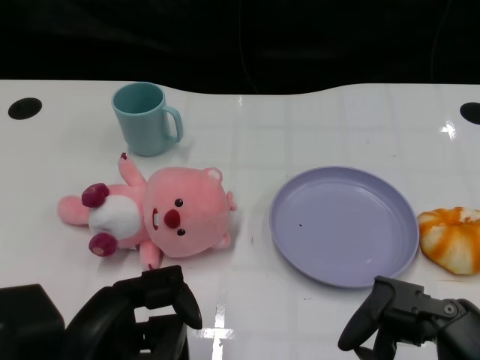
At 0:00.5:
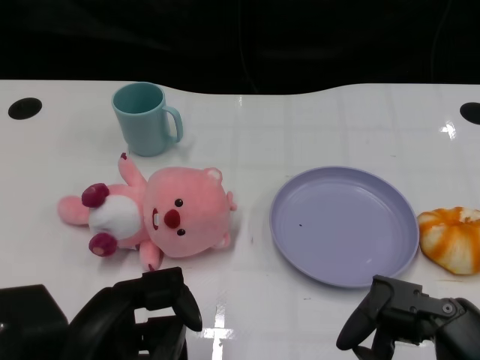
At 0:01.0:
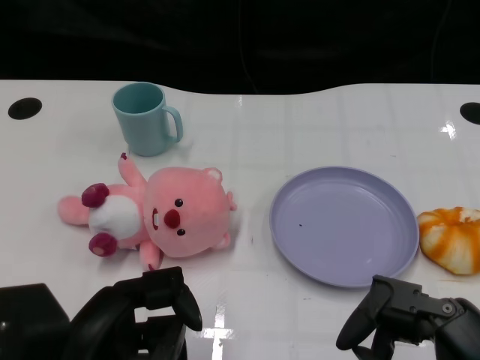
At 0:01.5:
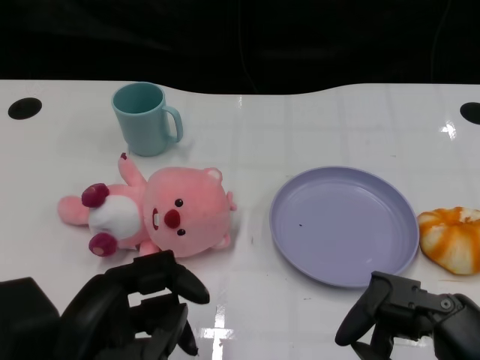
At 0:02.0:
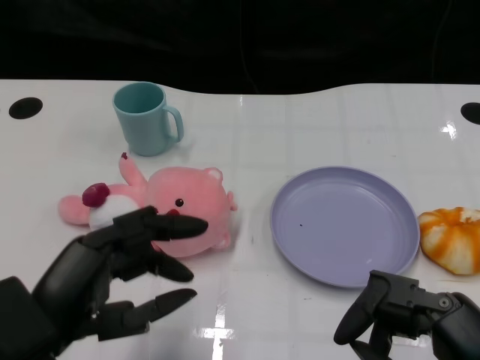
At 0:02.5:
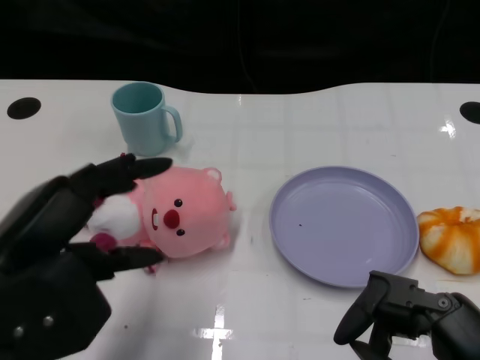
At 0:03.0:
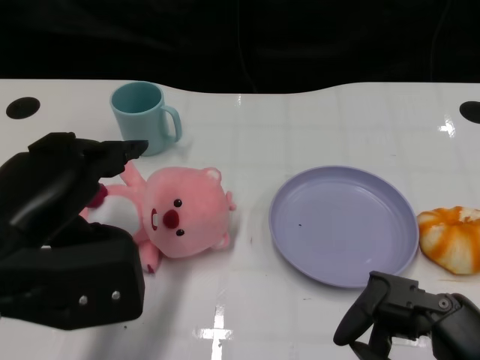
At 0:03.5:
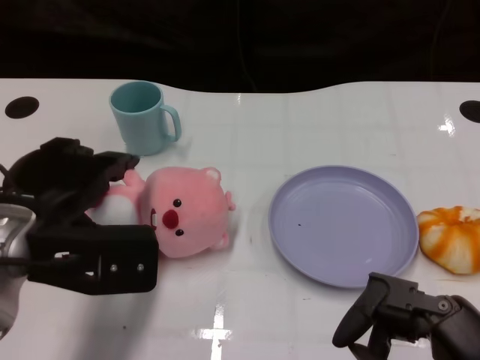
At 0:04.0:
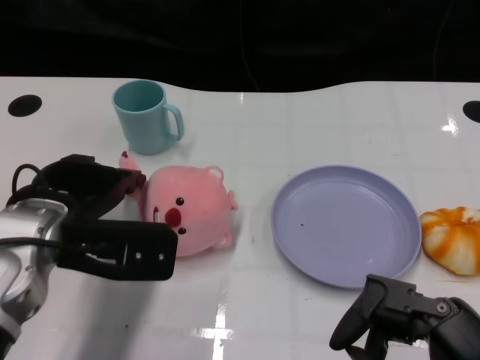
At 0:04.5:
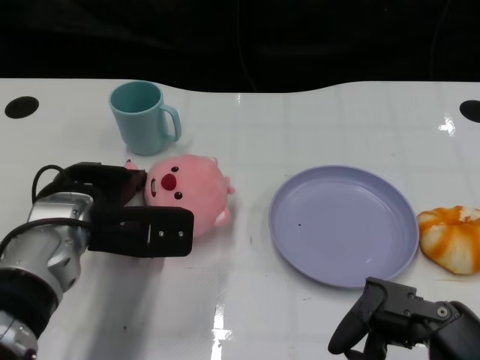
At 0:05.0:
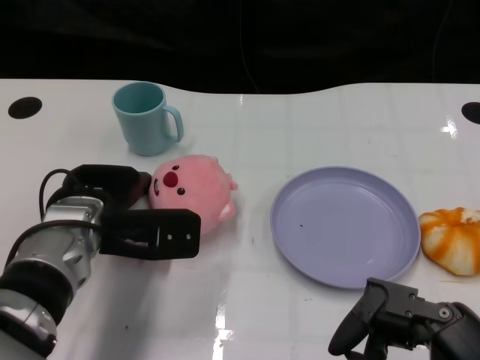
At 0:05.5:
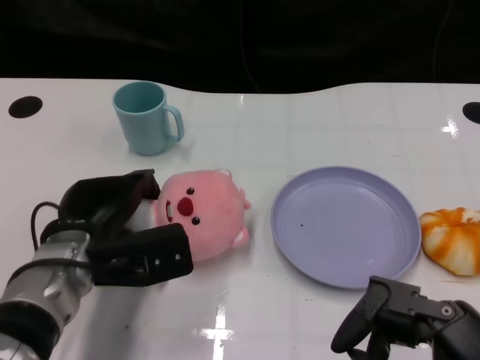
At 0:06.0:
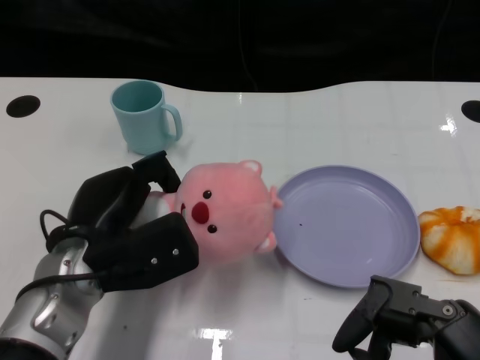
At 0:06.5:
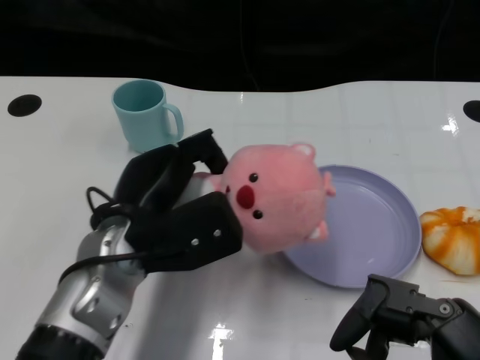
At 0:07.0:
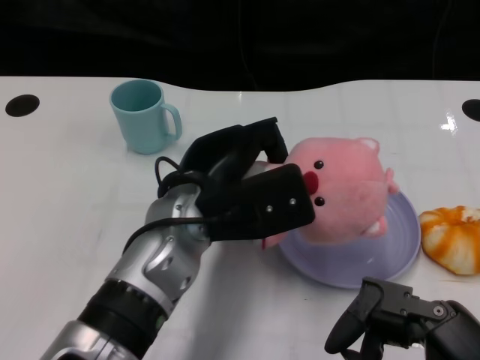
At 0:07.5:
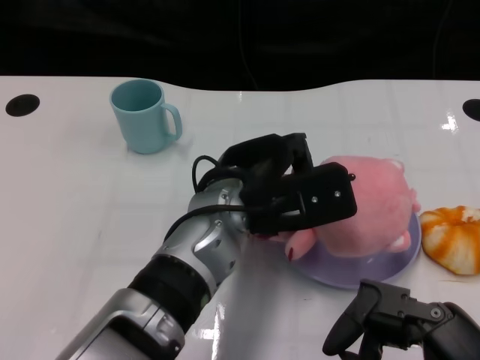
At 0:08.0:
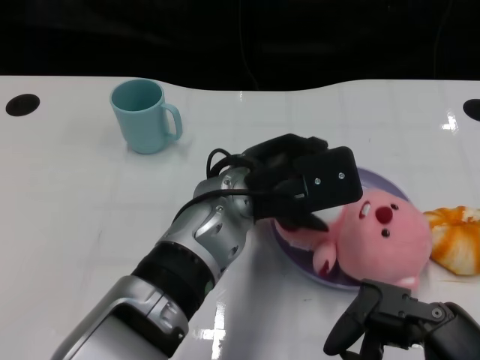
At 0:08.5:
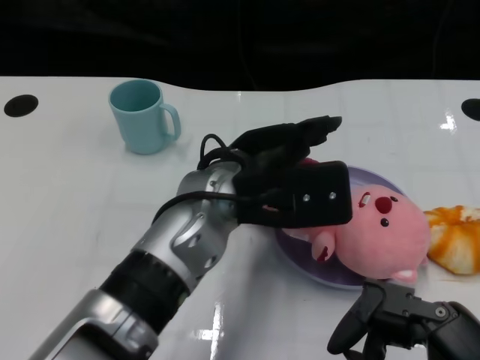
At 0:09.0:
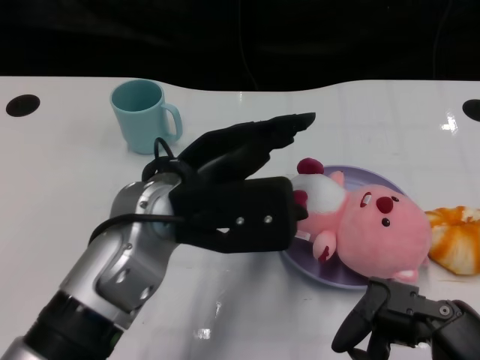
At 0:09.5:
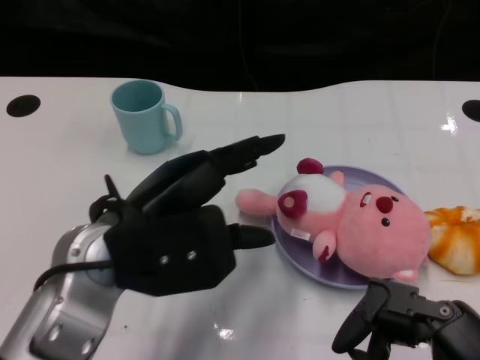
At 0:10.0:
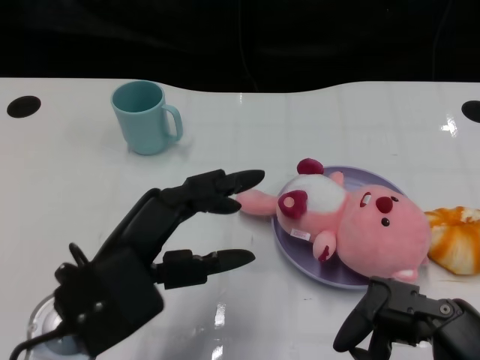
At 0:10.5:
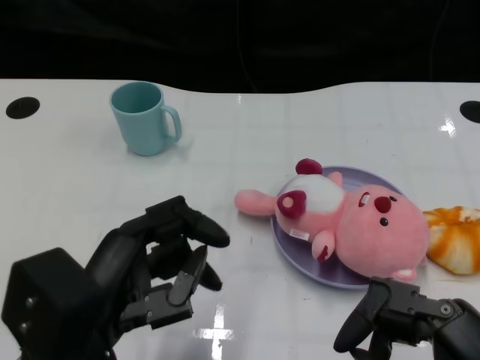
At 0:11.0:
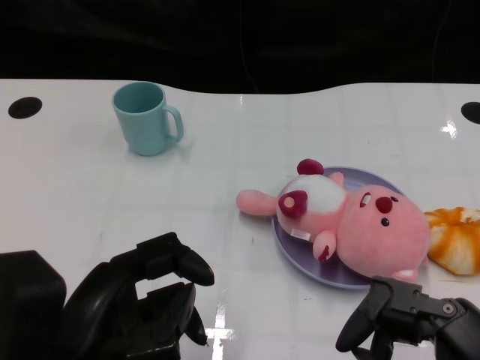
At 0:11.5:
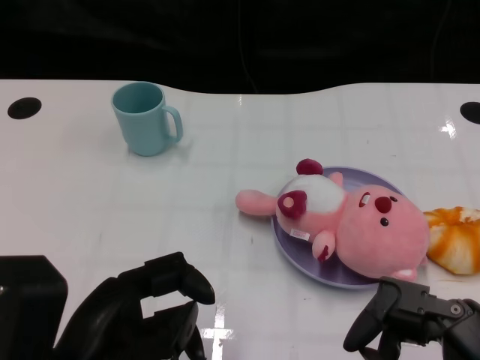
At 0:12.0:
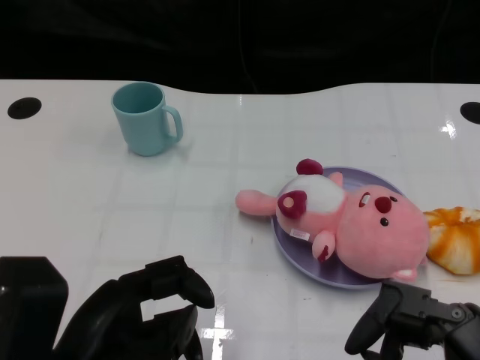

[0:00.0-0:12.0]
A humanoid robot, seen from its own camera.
Task of the whole recording: Pick up the doll on one side of the plate and place it into the plate.
Step, 0:01.5 to 0:05.5: Grasp the pink doll with the left gripper.
Step, 0:06.0 to 0:08.0: Place the pink doll into the plate with the left gripper.
0:02.0 to 0:04.0: The left hand shifts roughly 15 cm forward.
0:04.0 to 0:06.0: The left hand shifts by about 5 cm.
0:06.0 to 0:08.0: The left hand shifts approximately 15 cm to the right.
0:08.0 to 0:10.0: The left hand moves to the left and backward, roughly 15 cm.
0:10.0 to 0:12.0: The left hand moves backward, approximately 5 cm.

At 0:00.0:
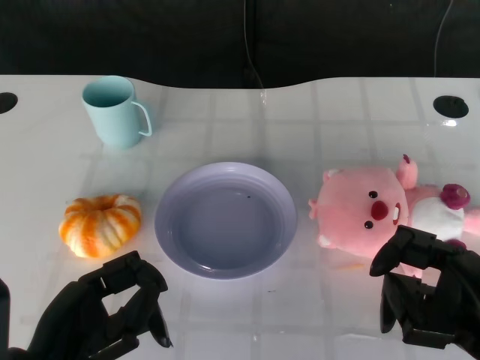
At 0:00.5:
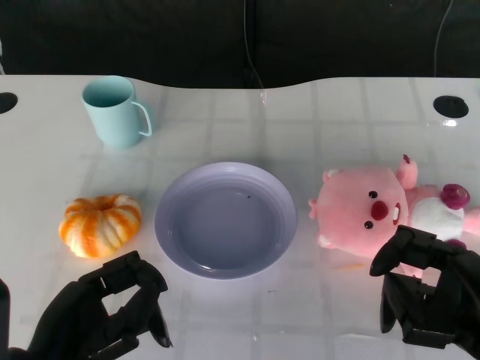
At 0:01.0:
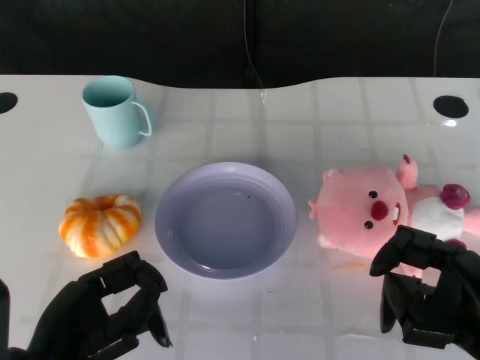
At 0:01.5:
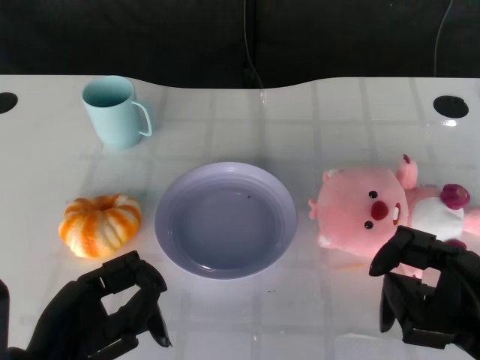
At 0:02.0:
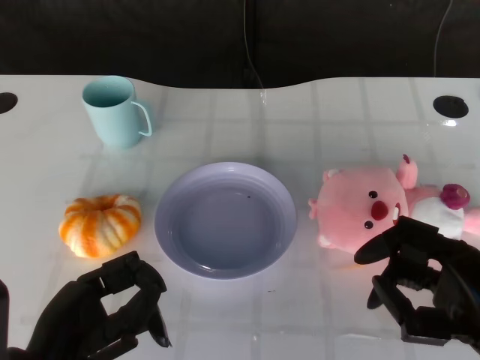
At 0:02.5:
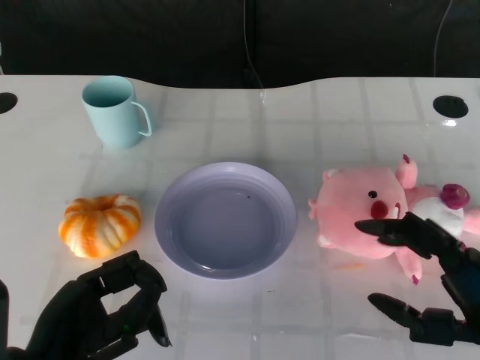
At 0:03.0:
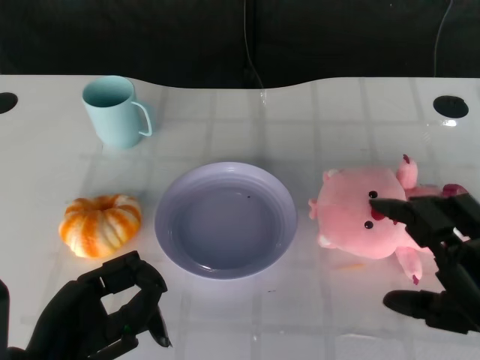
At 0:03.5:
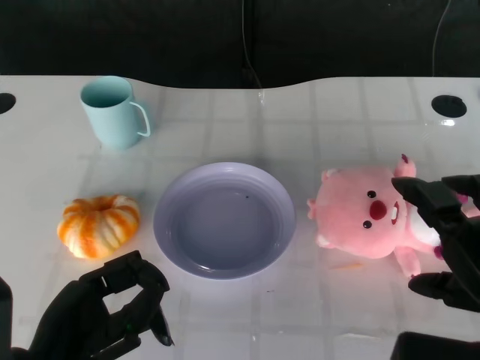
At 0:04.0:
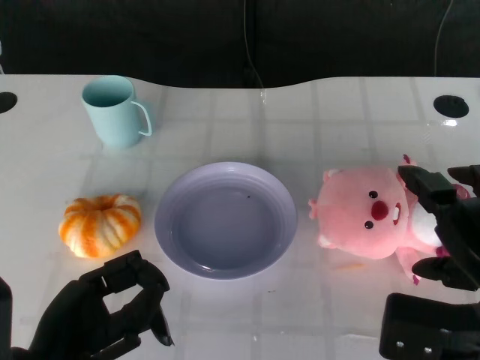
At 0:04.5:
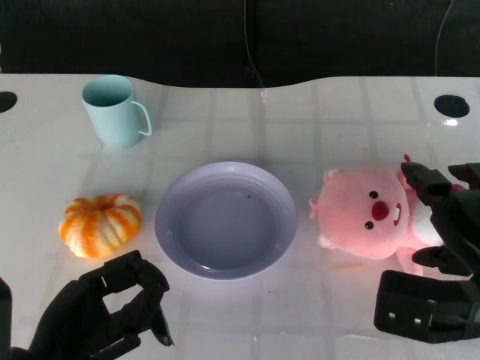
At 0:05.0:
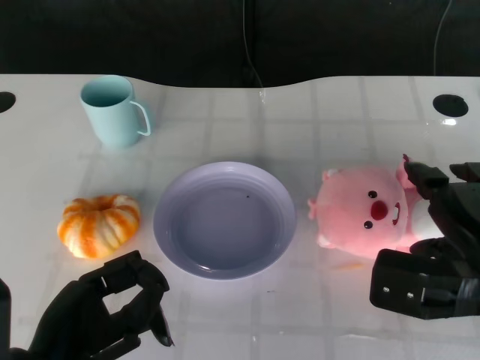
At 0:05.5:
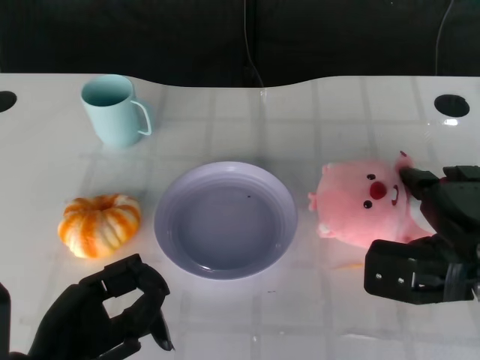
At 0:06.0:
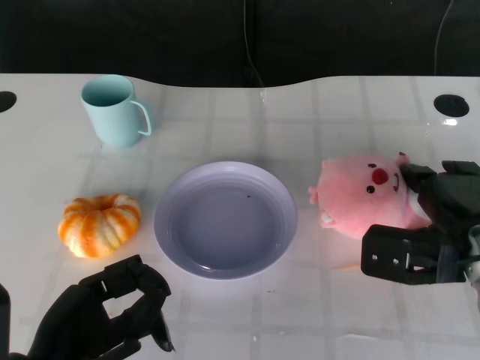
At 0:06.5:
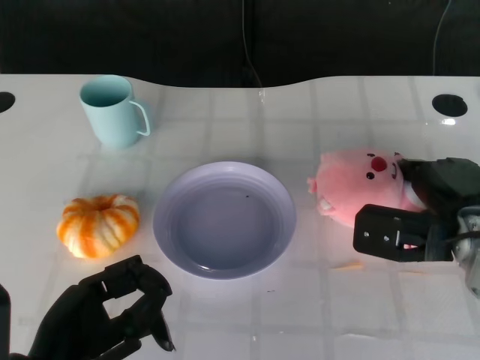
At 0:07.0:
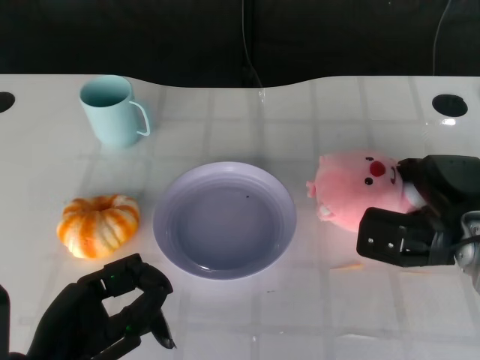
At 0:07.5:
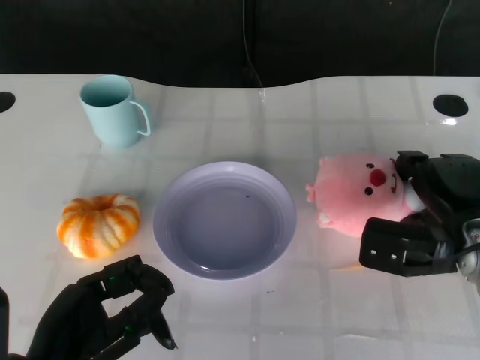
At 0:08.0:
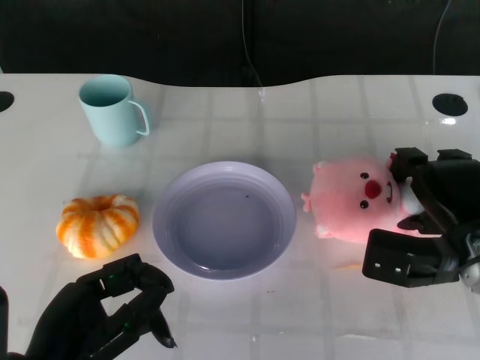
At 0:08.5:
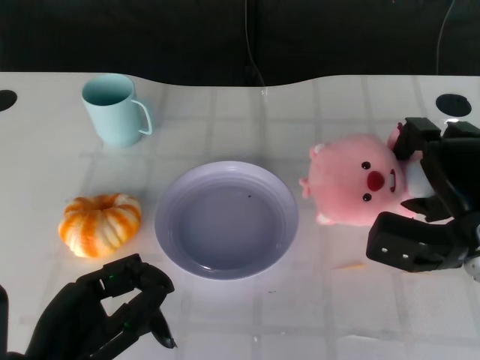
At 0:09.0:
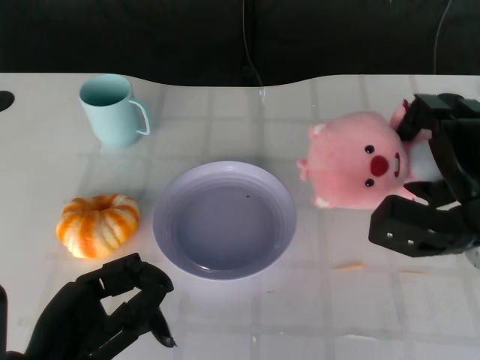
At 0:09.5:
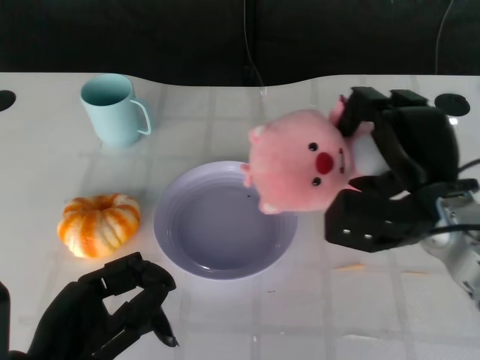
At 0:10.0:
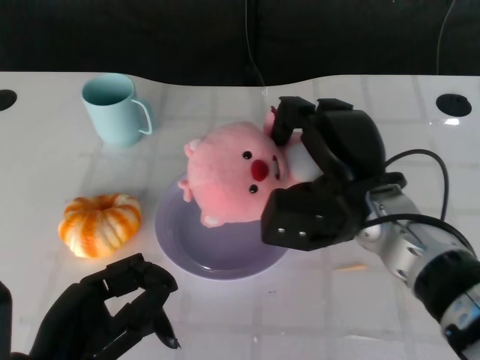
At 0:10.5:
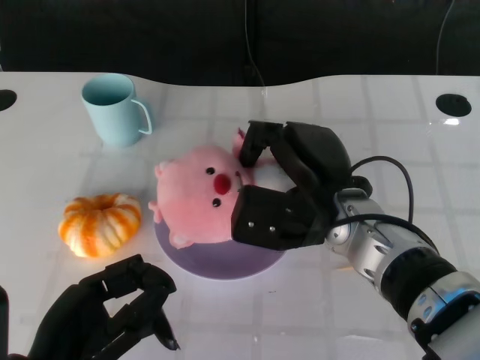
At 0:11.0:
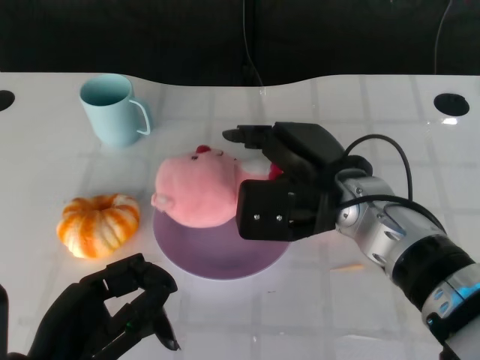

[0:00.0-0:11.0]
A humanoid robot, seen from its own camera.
Task of the whole recording: Pick up the doll on the other side of the plate and place it into the plate.
Step, 0:02.0 to 0:08.0: Grasp the pink doll with the right gripper.
0:03.5 to 0:05.5: The right hand goes some 10 cm forward.
0:05.5 to 0:07.5: The right hand ends up approximately 5 cm from where it was.
0:09.0 to 0:11.0: The right hand shifts approximately 15 cm to the left.

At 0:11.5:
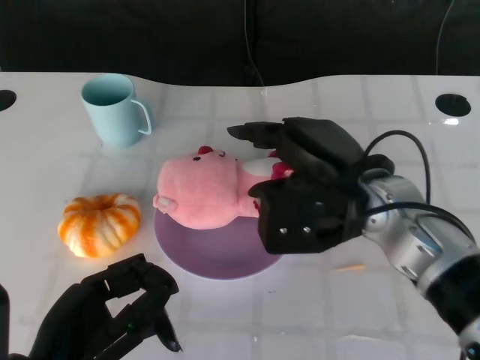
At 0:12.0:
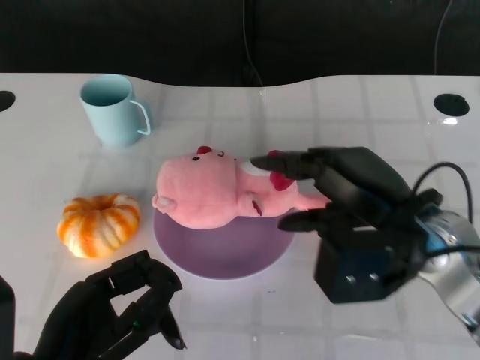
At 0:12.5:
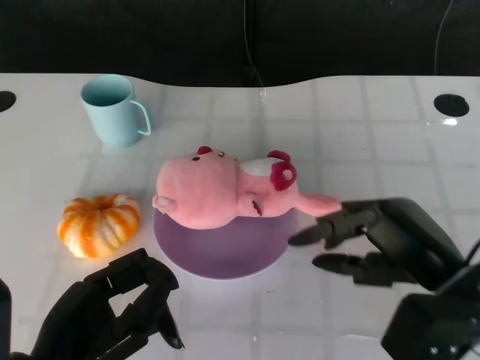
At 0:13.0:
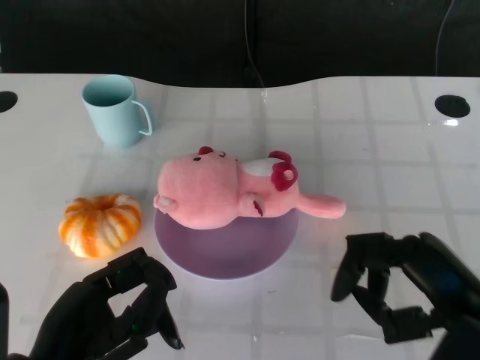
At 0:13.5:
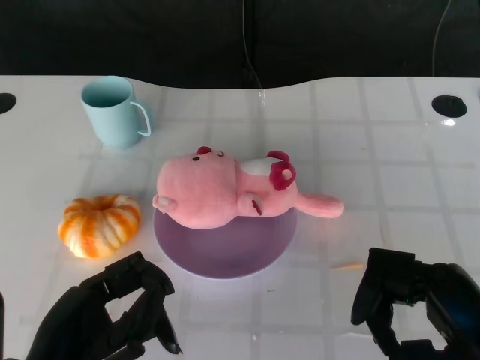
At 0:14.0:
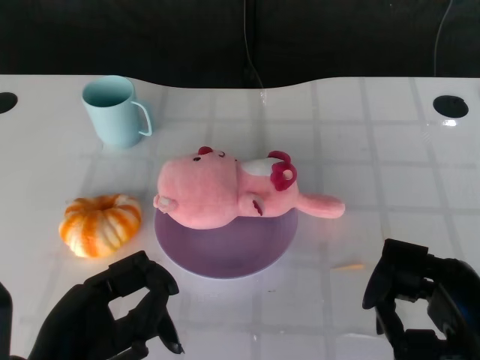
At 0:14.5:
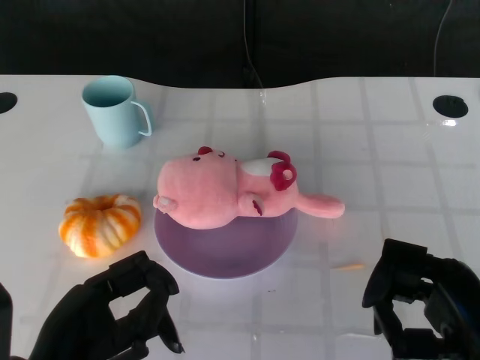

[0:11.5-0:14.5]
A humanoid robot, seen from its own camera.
Task of the whole recording: Pick up the doll on the other side of the plate and place it into the plate.
0:11.5 to 0:13.0: The right hand is displaced backward and to the right by some 15 cm.
